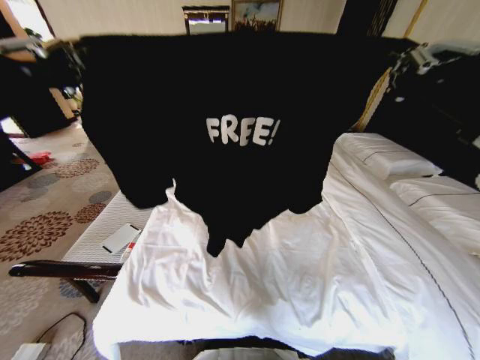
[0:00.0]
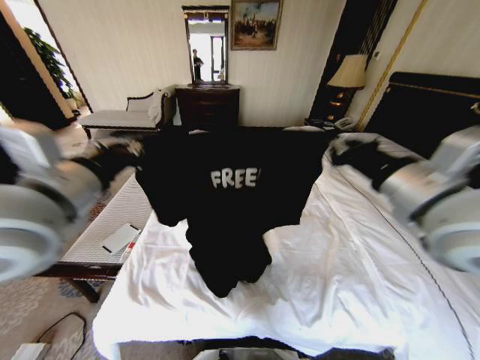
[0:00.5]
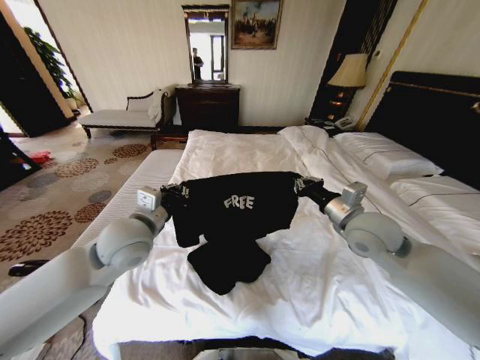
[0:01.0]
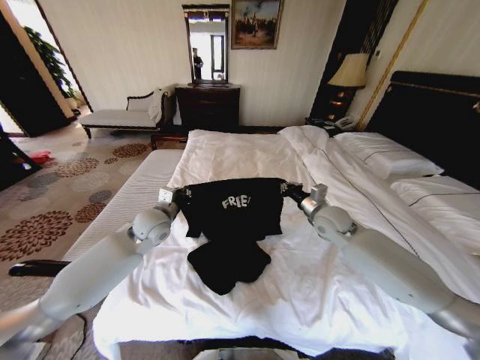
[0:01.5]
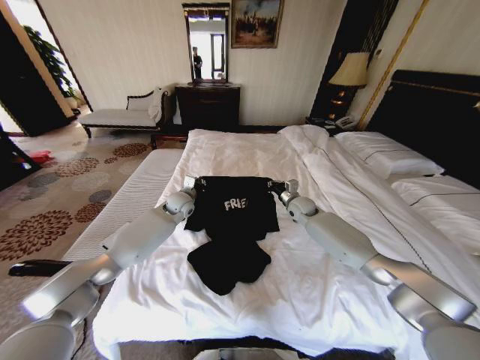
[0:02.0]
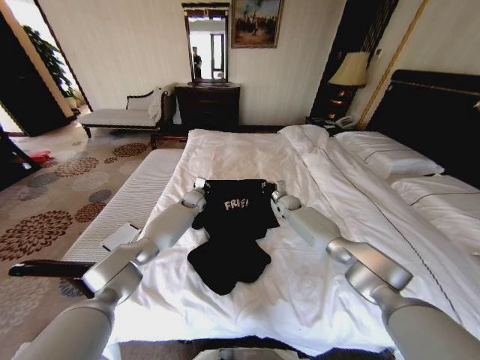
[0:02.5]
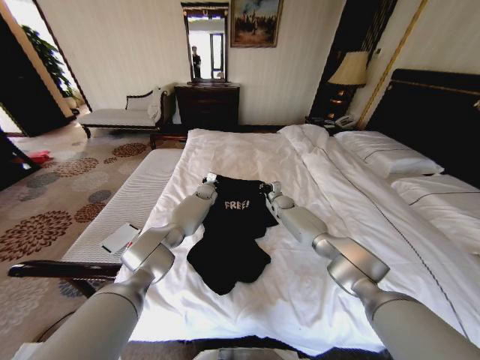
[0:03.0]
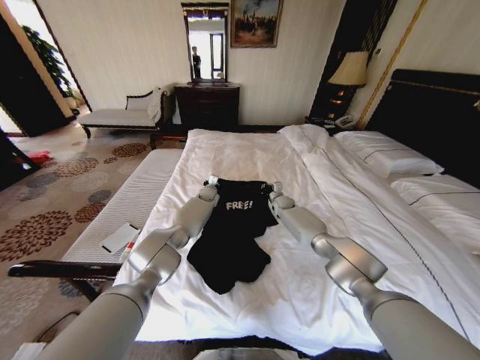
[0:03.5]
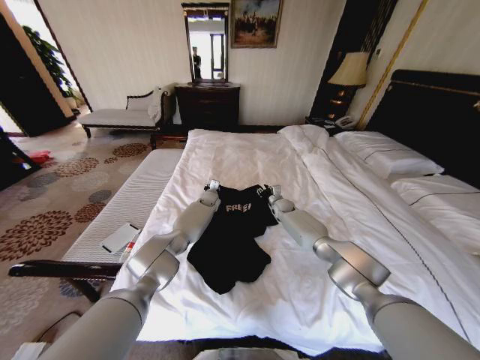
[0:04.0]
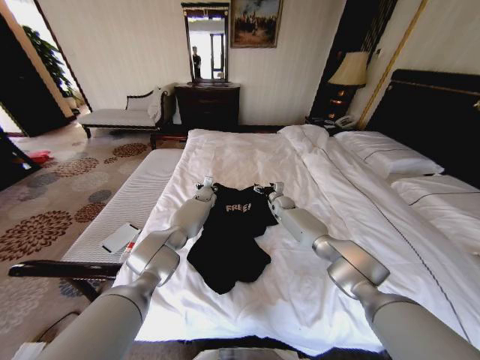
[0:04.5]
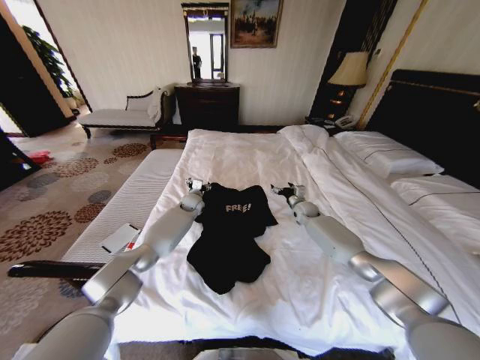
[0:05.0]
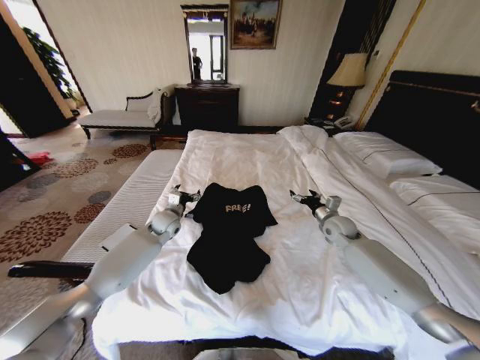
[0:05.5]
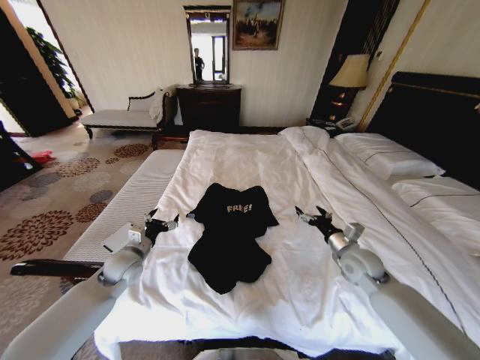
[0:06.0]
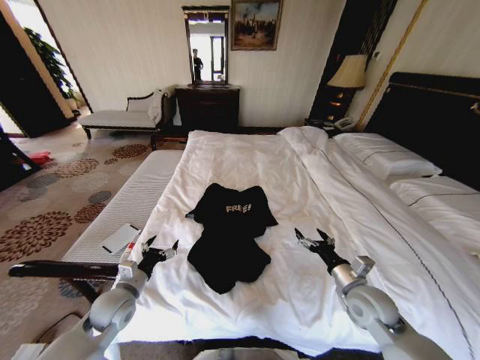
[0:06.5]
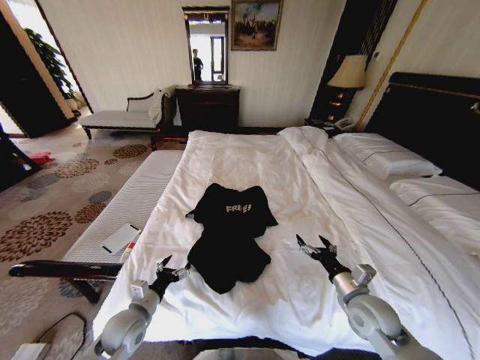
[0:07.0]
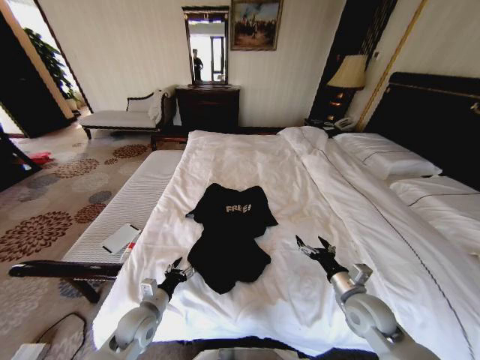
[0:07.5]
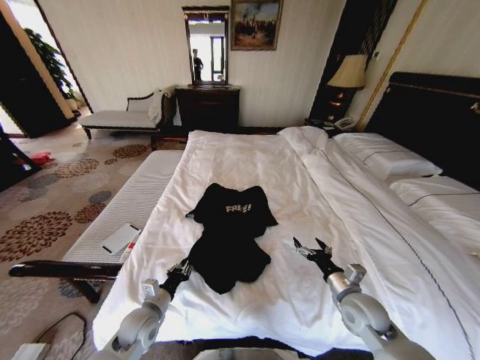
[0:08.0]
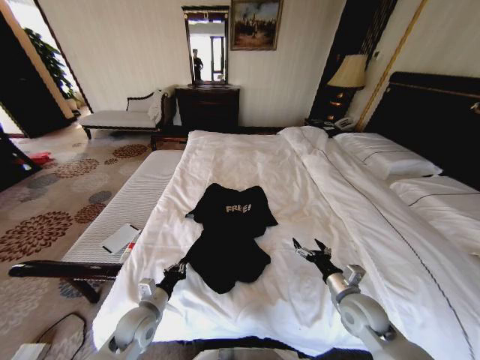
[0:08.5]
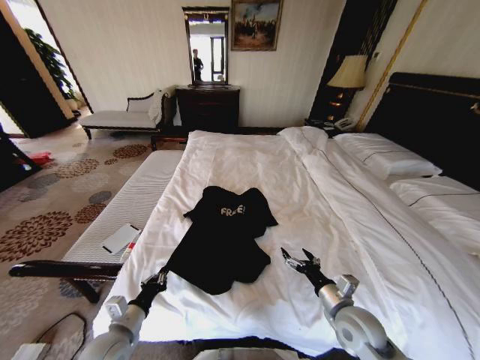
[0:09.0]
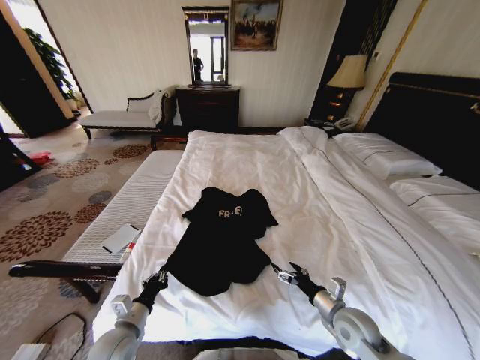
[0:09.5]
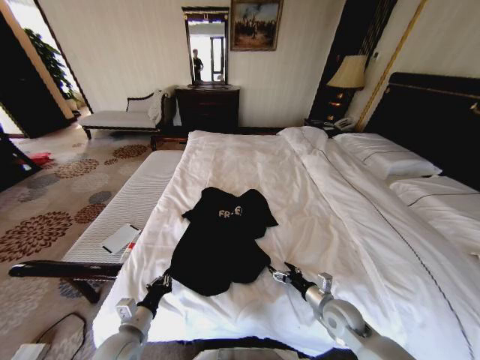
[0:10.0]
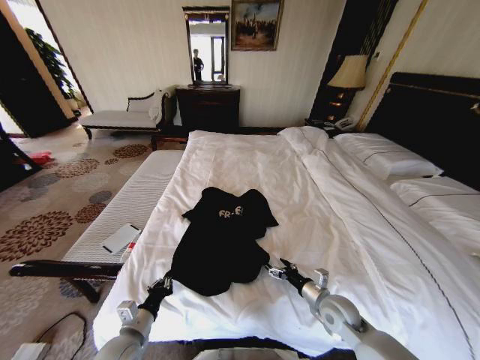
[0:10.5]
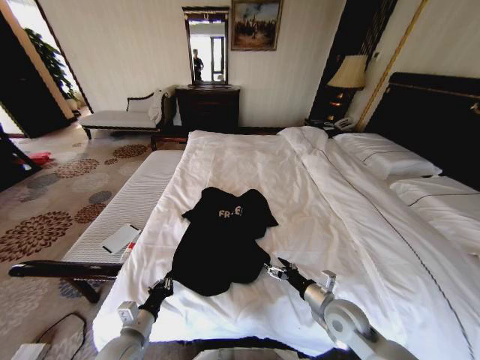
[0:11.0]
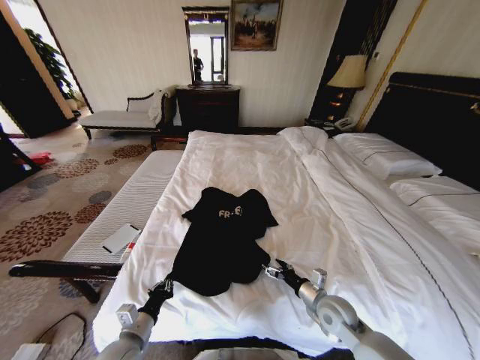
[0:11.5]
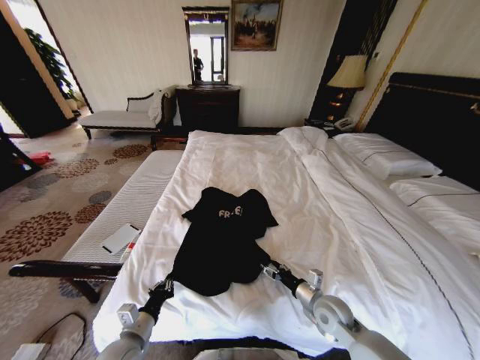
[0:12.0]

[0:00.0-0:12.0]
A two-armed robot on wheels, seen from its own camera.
Task of the whole recording: Fold the clothes on the bed.
0.0 to 2.0 s: The left gripper shifts about 50 cm forward and downward; the right gripper moves downward and forward, approximately 50 cm.
2.0 to 4.0 s: The right gripper goes roughly 10 cm downward and forward, and opens up. The left gripper shifts roughly 15 cm forward, to the right and downward, and opens.
4.0 to 6.0 s: The right gripper shifts approximately 30 cm backward and to the right, and opens up. The left gripper is displaced backward and to the left by approximately 35 cm, and opens.
6.0 to 8.0 s: The right gripper shifts roughly 15 cm backward and downward; the left gripper is displaced backward, downward and to the right by about 20 cm, and closes its fingers.
8.0 to 10.0 s: The right gripper shifts some 5 cm downward. Meanwhile the left gripper travels backward by about 5 cm.
10.0 to 12.0 s: The grippers stay close to where they were, moving slightly.

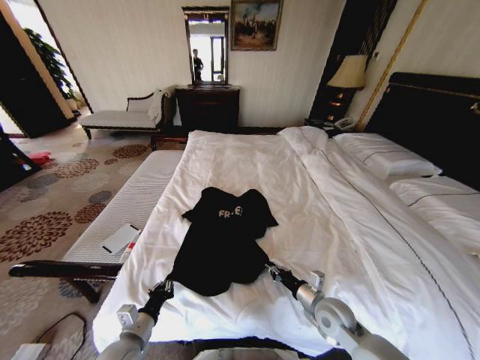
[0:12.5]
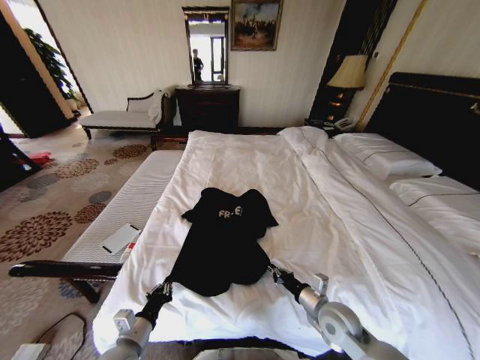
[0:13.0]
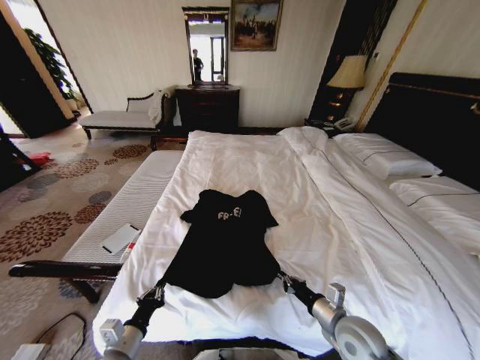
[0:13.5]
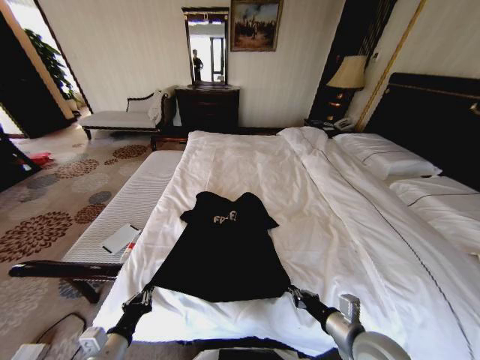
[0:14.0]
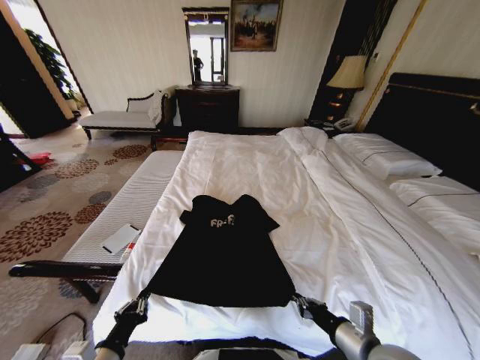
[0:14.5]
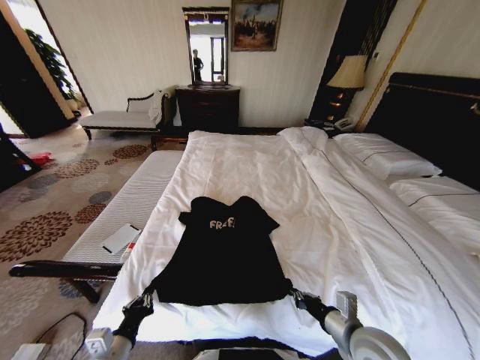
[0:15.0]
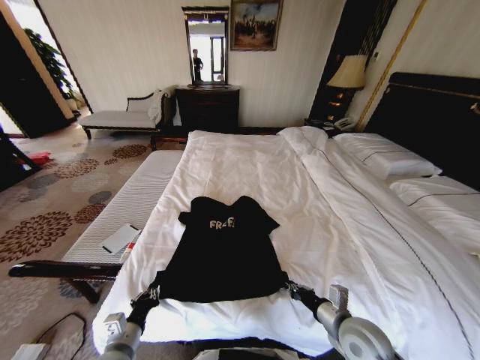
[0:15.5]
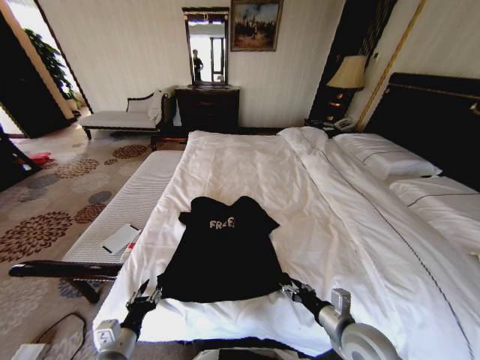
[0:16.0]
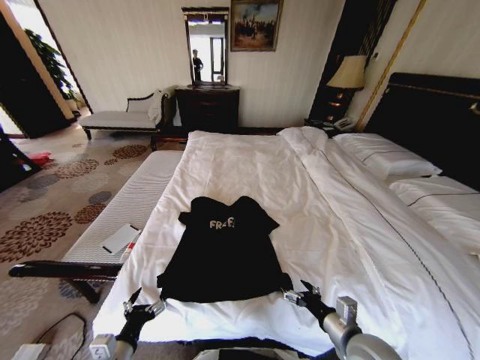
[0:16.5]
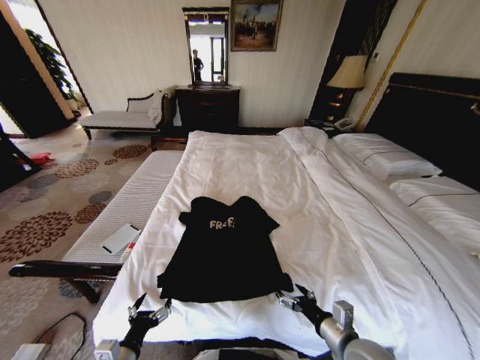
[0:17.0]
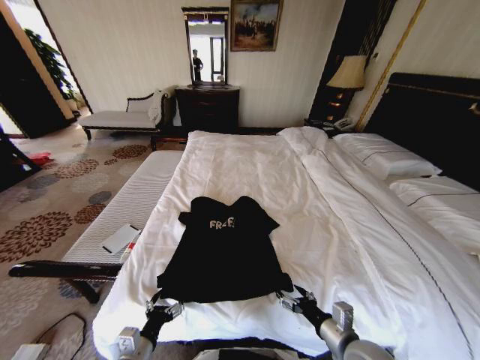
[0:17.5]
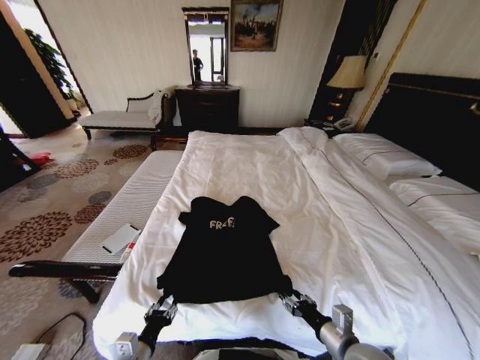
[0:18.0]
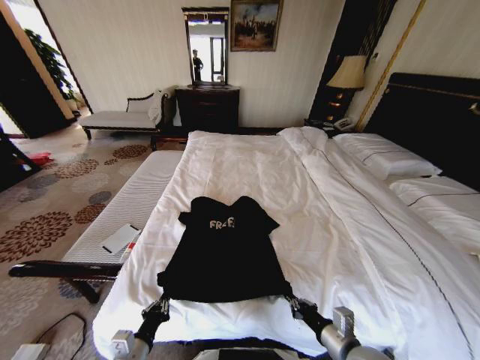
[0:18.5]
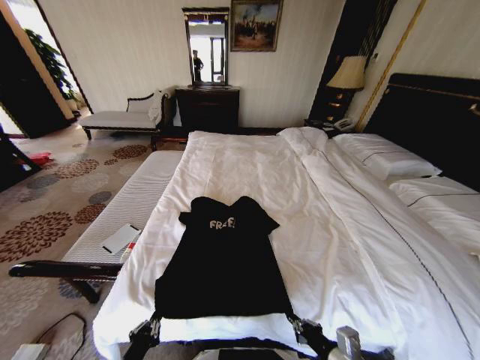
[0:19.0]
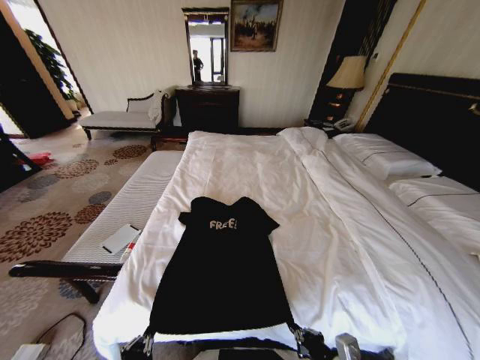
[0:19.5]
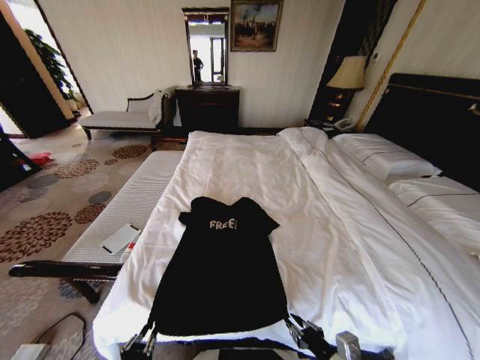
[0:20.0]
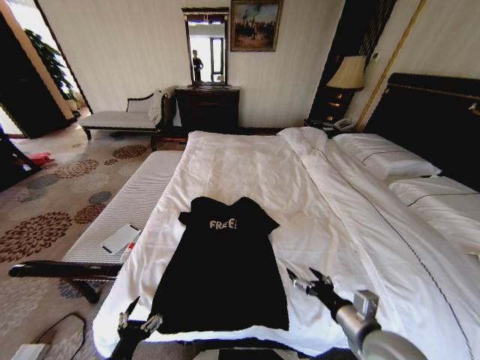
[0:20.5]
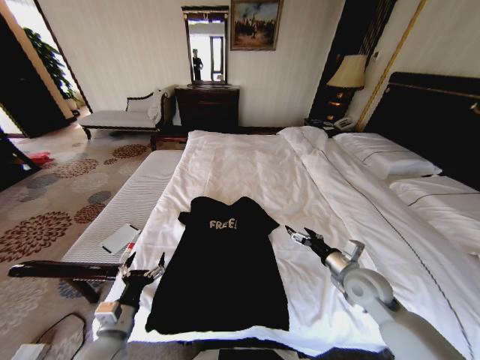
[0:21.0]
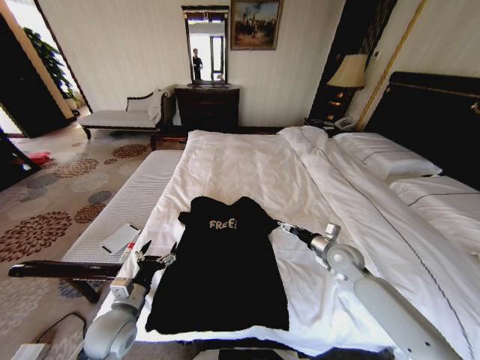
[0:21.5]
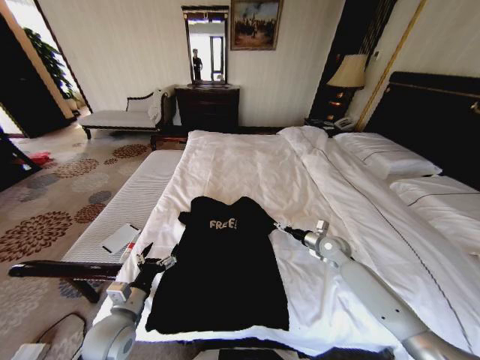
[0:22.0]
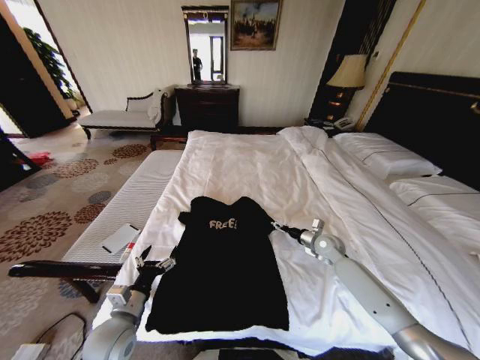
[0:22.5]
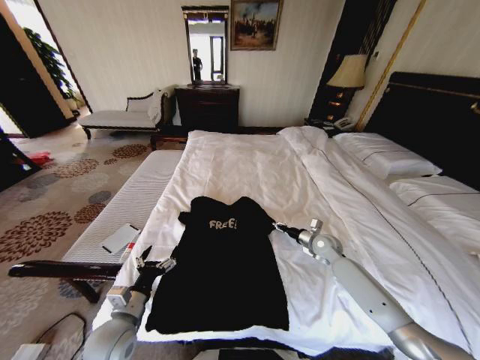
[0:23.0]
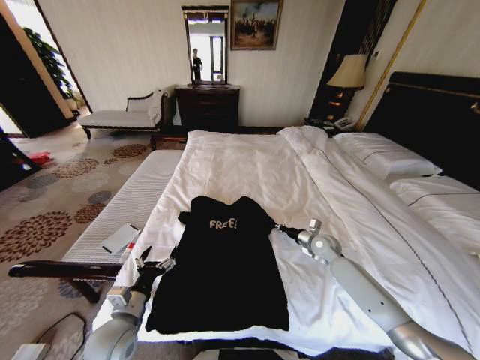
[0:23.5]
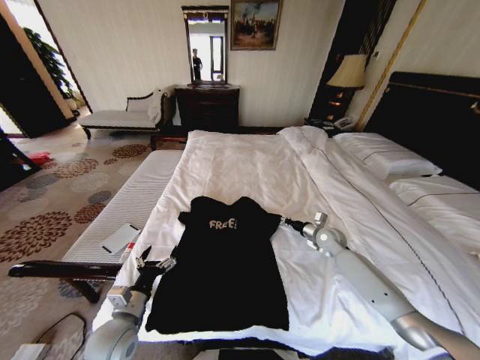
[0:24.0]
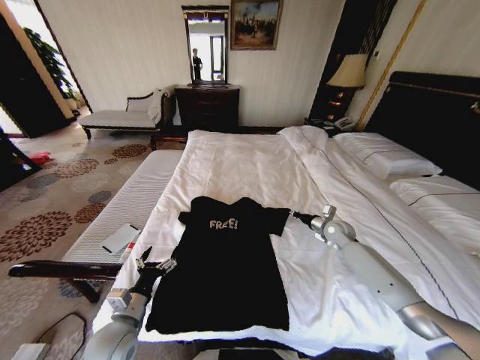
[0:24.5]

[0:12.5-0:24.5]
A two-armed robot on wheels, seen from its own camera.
Task of the whole recording: Fold the clothes on the bed.
12.5 to 14.5 s: The right gripper goes about 15 cm upward and backward, while the left gripper heads backward and upward, covering approximately 10 cm.
14.5 to 16.5 s: Both grippers travel together downward, about 5 cm. The left gripper opens; the right gripper opens its fingers.
16.5 to 18.5 s: The right gripper closes. Meanwhile the left gripper closes up.
18.5 to 20.5 s: The right gripper shifts by some 5 cm, and opens its fingers. The left gripper goes approximately 5 cm backward, and opens.
20.5 to 22.5 s: The right gripper is displaced forward by roughly 30 cm. The left gripper shifts about 15 cm forward.
22.5 to 24.5 s: The right gripper ends up some 5 cm from where it was, and closes.

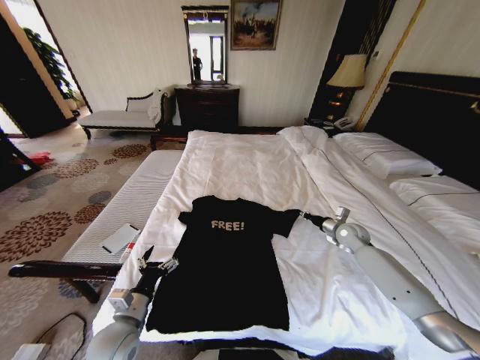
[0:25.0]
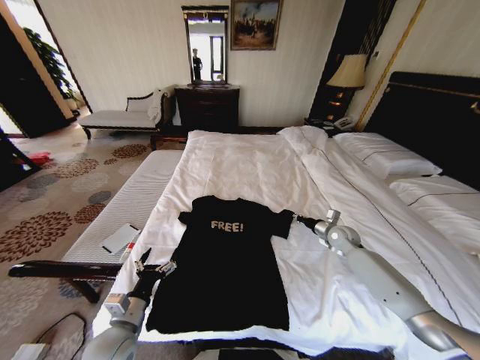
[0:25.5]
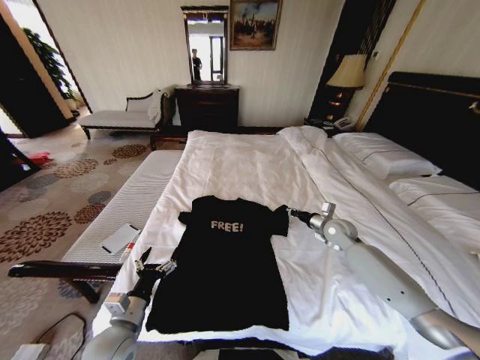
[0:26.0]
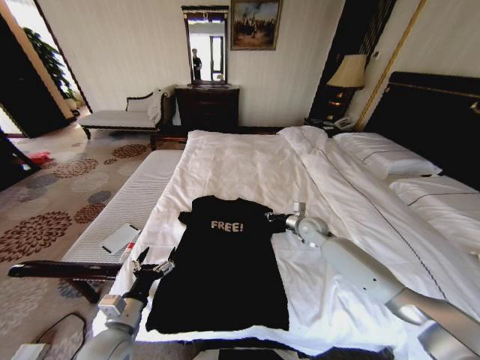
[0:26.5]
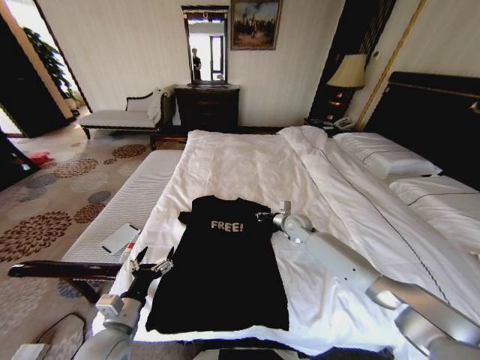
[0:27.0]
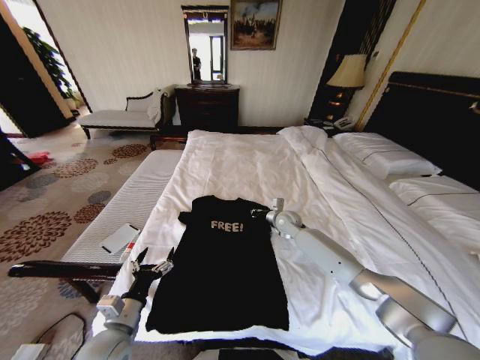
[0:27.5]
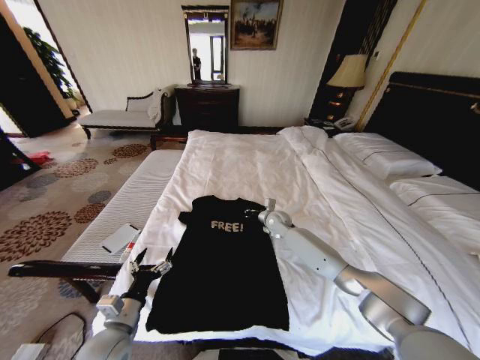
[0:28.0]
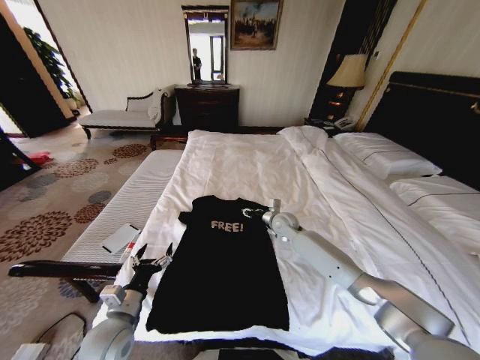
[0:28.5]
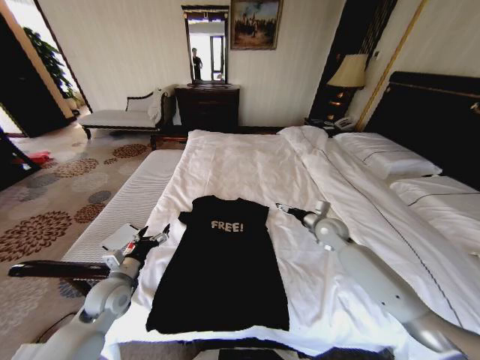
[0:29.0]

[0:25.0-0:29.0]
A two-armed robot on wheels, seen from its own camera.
Task of the whole recording: Fold the clothes on the bed.
25.0 to 27.0 s: The right gripper moves to the left, about 20 cm.
27.0 to 29.0 s: The left gripper moves forward, approximately 10 cm; the right gripper moves to the right, some 10 cm, and opens its fingers.
